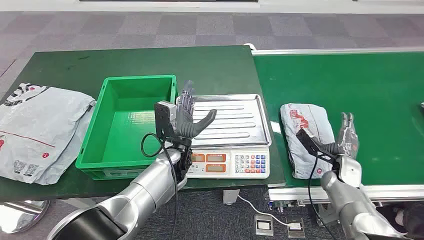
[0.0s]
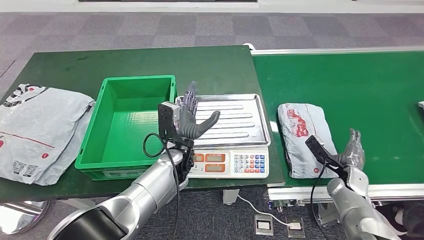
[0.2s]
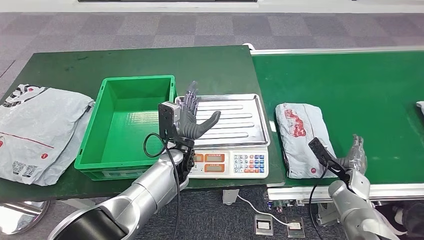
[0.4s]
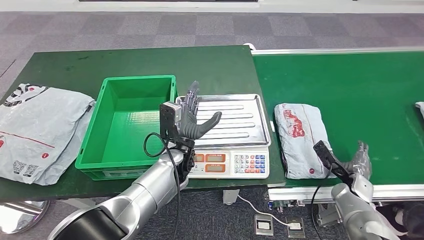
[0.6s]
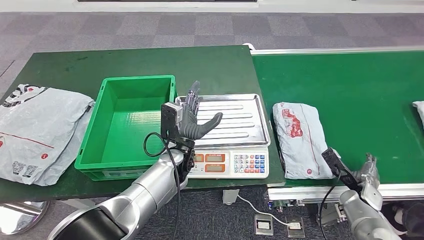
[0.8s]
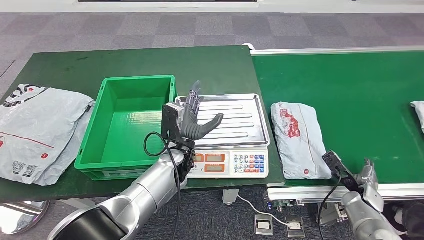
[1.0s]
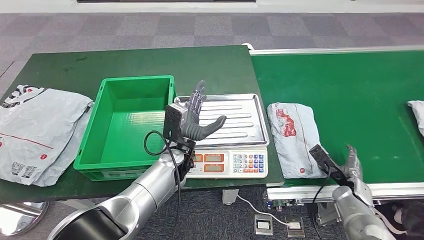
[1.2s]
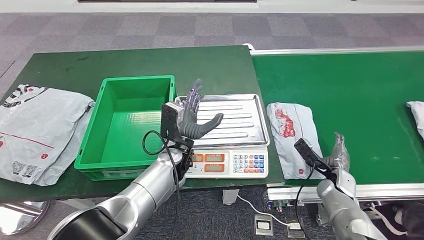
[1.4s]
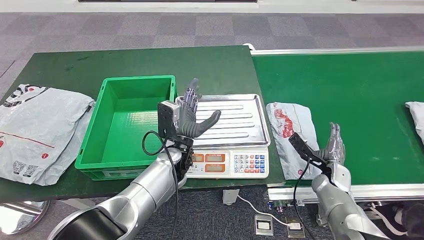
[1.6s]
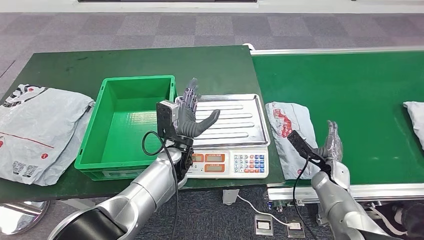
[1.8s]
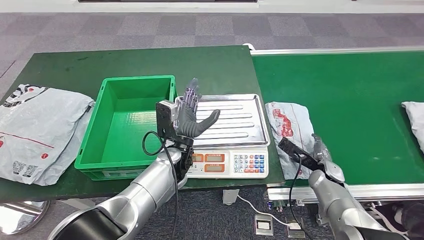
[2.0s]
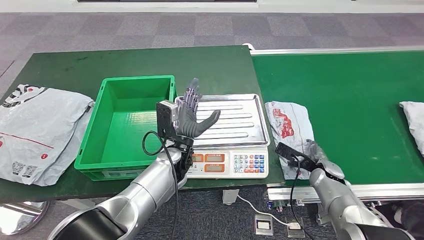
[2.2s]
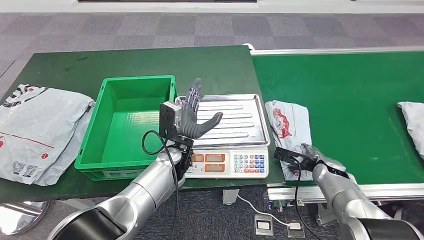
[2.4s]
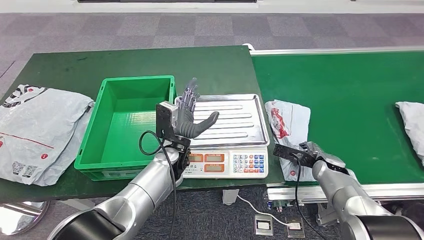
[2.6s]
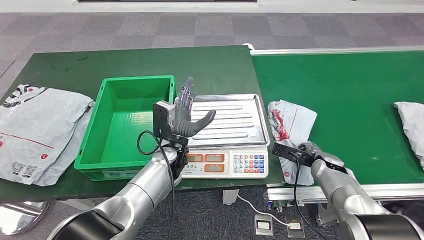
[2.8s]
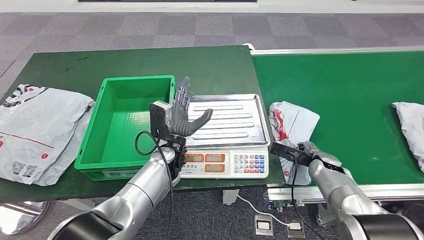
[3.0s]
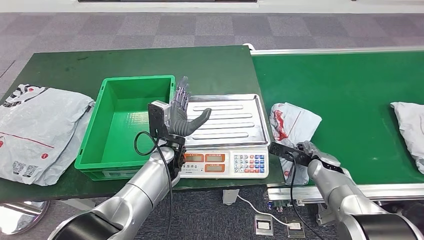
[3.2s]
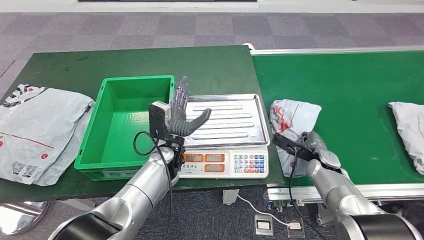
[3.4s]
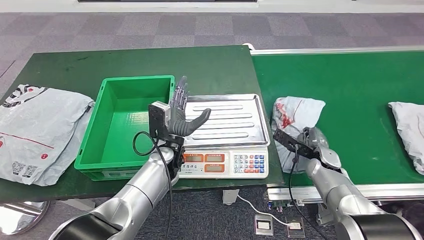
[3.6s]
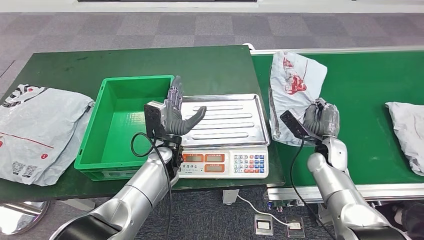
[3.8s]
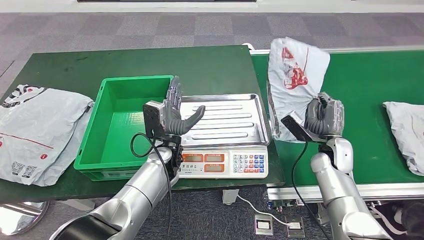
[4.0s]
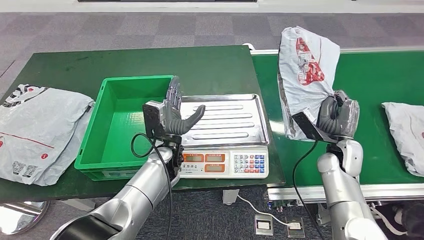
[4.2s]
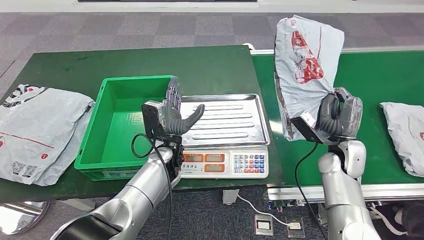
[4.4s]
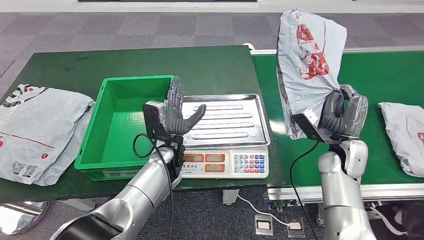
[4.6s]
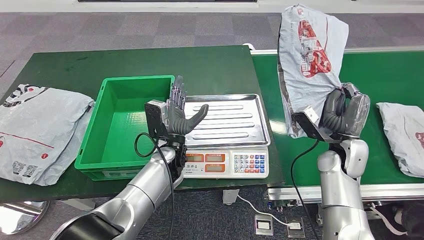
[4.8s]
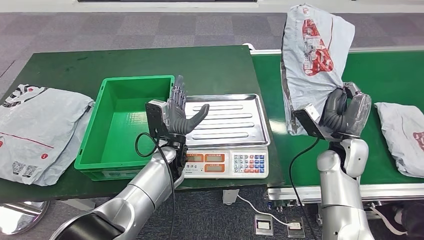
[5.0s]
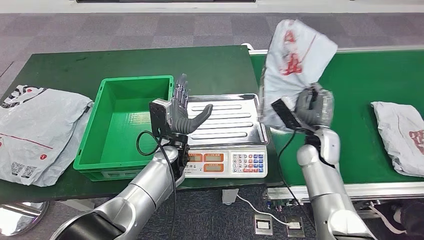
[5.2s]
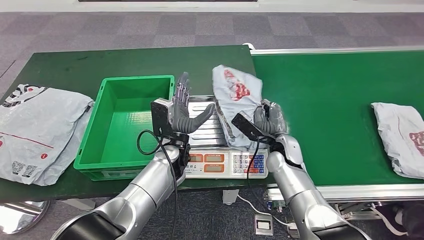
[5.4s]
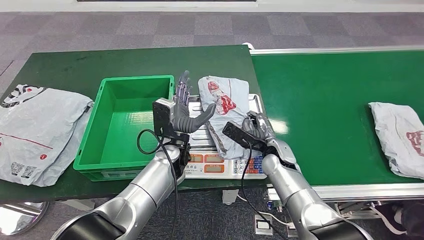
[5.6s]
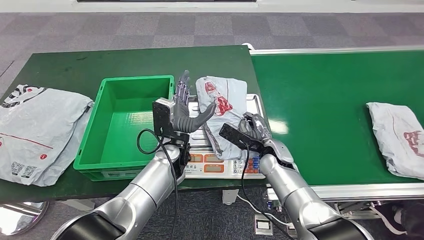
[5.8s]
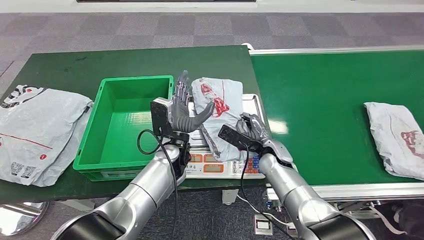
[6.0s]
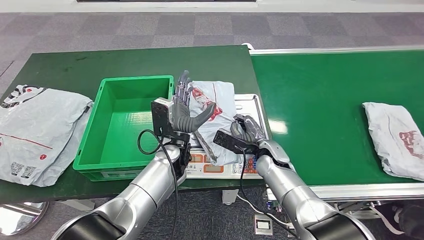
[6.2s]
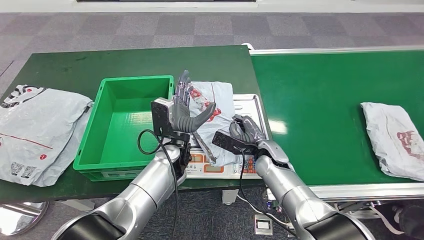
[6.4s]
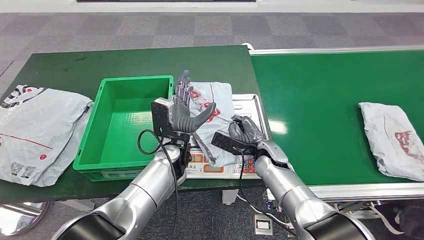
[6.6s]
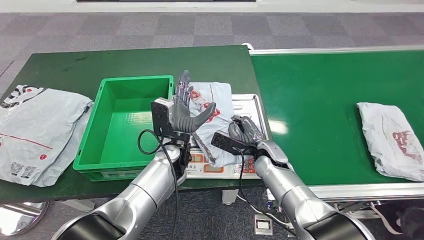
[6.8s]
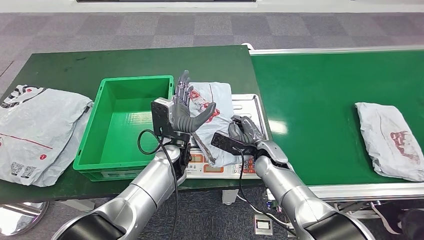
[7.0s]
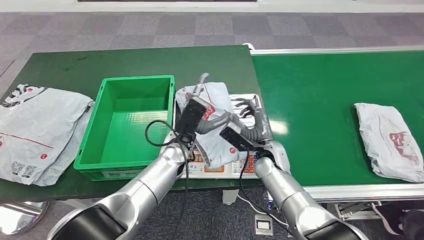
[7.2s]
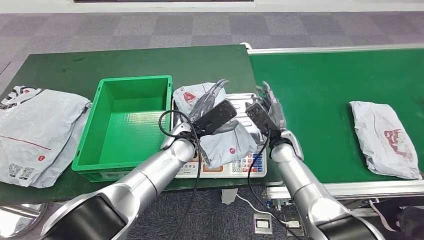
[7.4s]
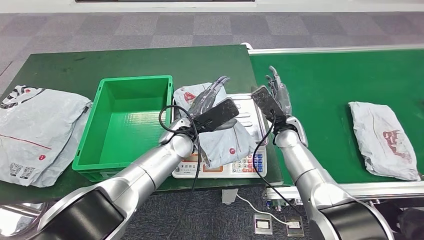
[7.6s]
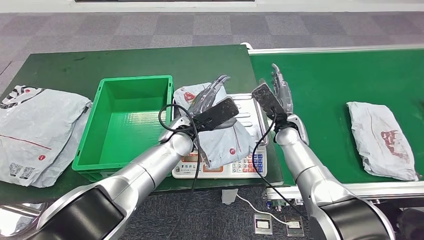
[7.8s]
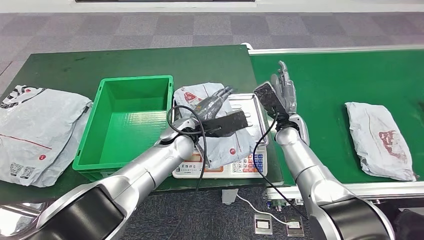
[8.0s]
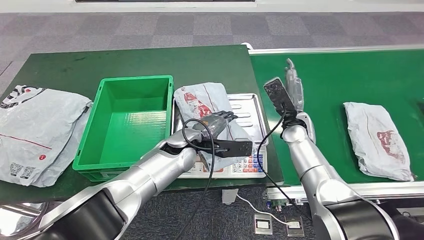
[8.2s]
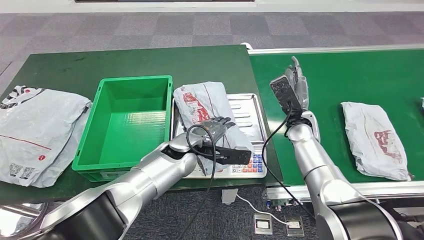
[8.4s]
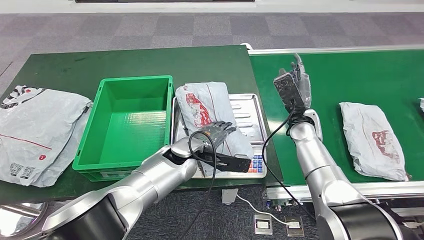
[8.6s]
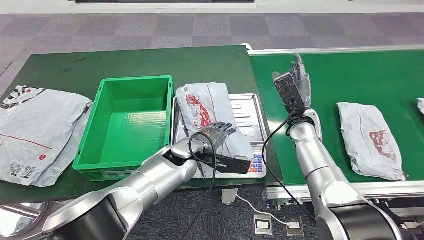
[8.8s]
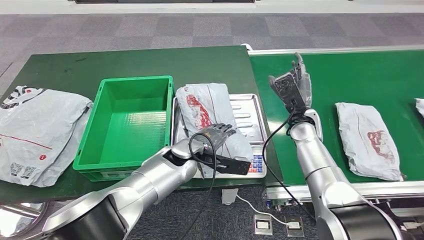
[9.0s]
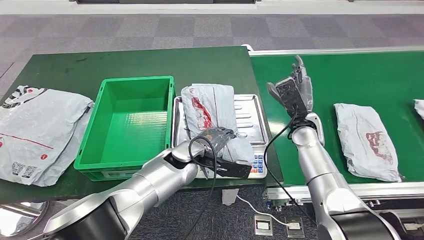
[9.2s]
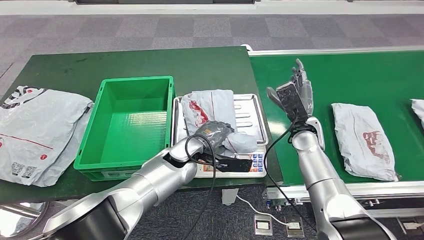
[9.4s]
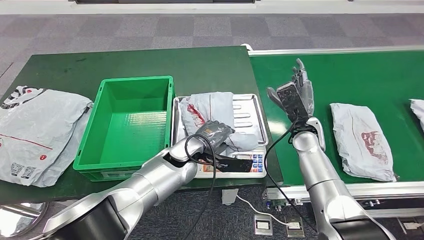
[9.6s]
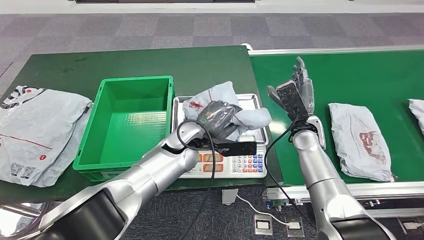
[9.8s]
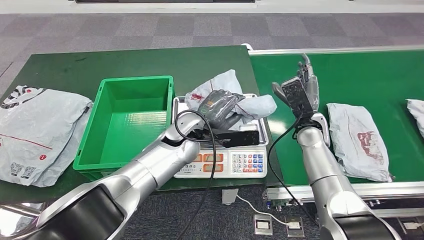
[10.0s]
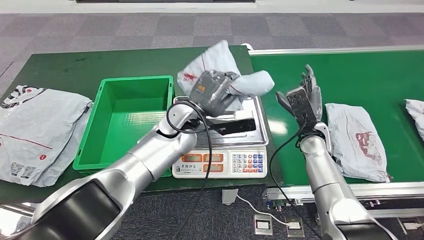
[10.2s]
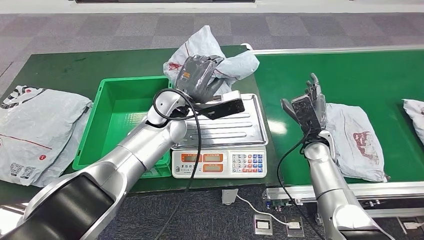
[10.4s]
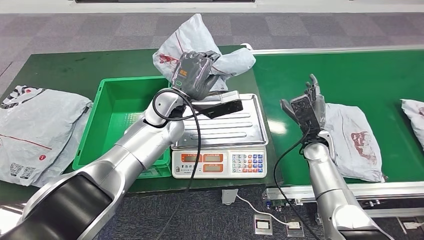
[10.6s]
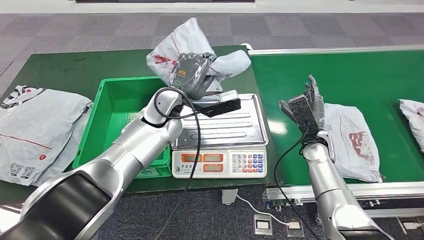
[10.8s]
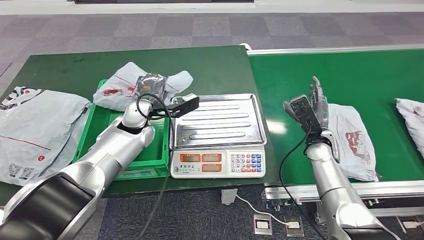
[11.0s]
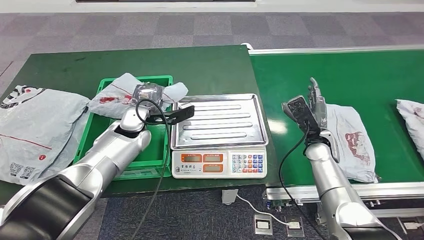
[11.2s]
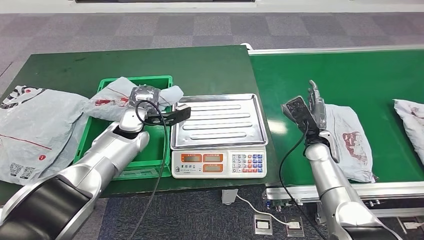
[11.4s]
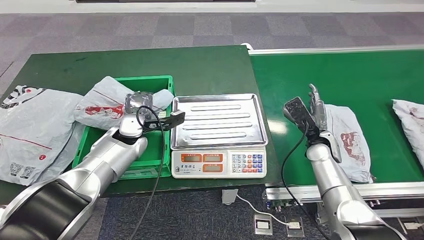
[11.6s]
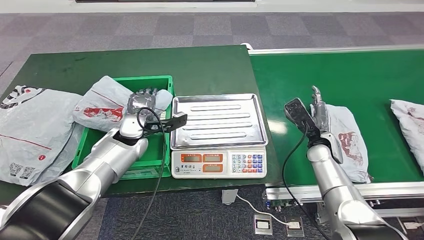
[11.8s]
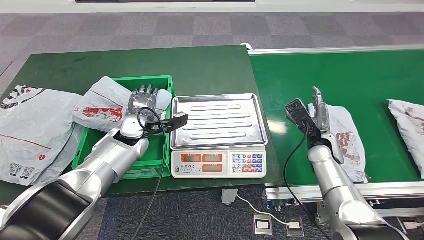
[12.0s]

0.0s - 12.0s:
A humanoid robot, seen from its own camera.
Step, 0.0s - 4.0s: Take the parcel off the conveyor belt.
Step, 4.2s - 6.8s: Place the parcel onto the inbound machine.
Step, 7.0s - 10.0s: Pick up the parcel from the inbound machine.
1.6s - 3.0s: The right hand shifts by about 5 cm.

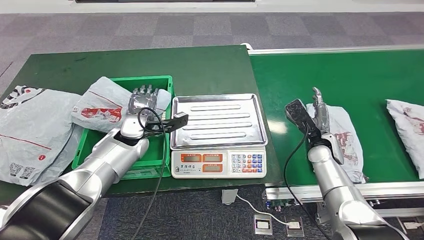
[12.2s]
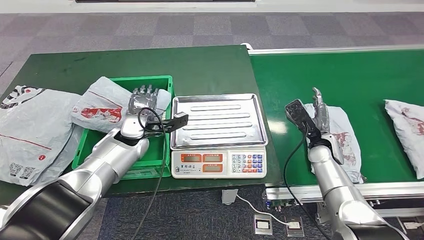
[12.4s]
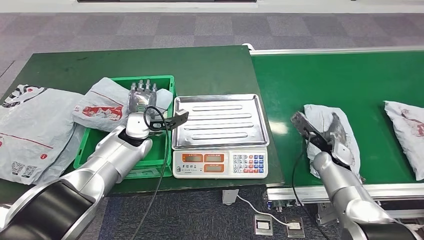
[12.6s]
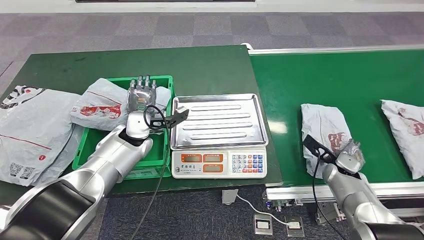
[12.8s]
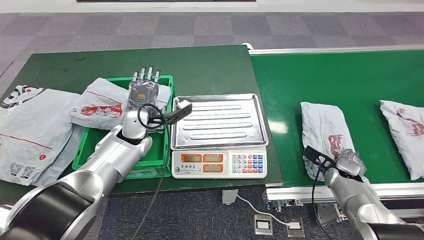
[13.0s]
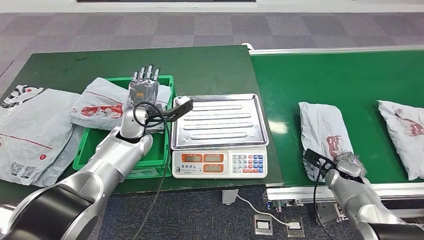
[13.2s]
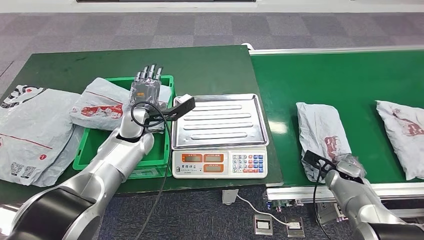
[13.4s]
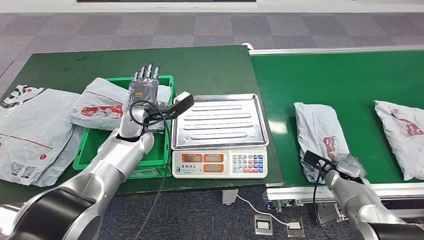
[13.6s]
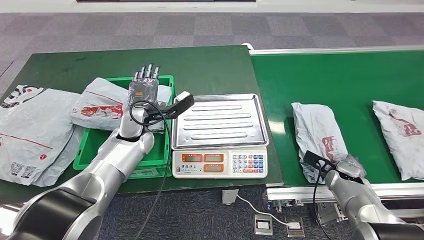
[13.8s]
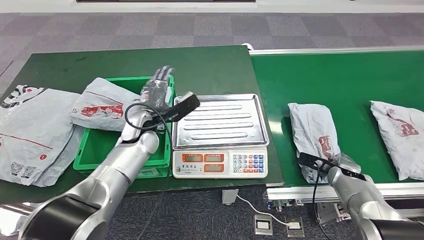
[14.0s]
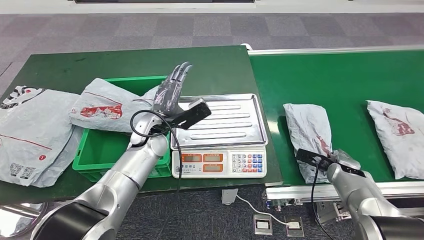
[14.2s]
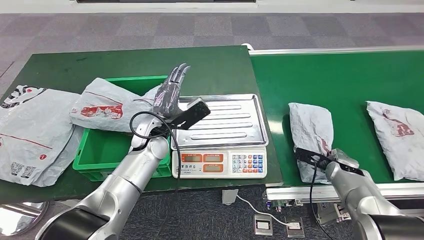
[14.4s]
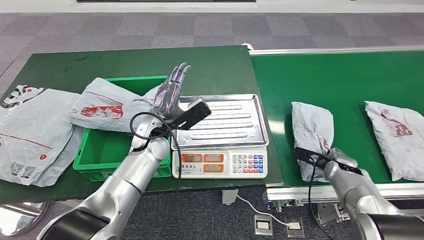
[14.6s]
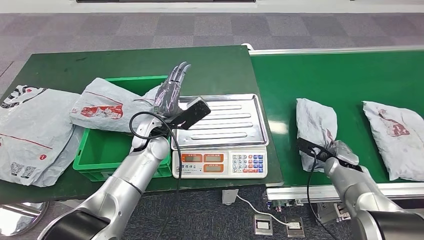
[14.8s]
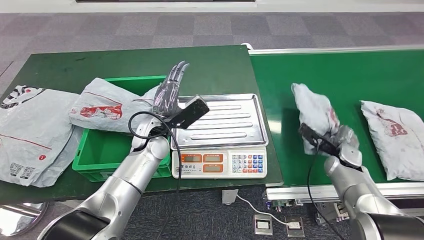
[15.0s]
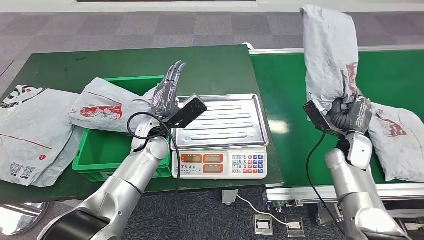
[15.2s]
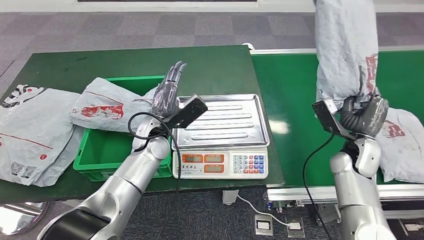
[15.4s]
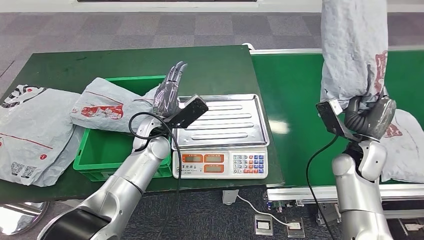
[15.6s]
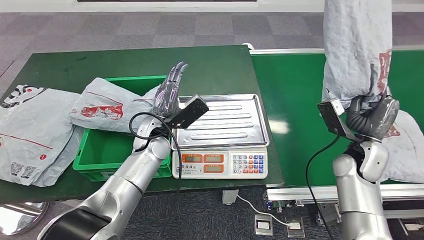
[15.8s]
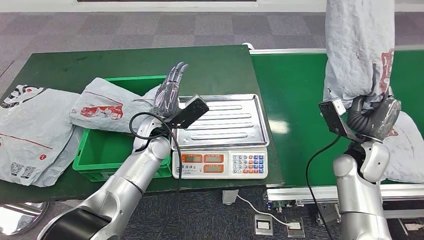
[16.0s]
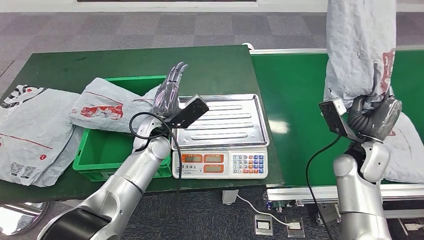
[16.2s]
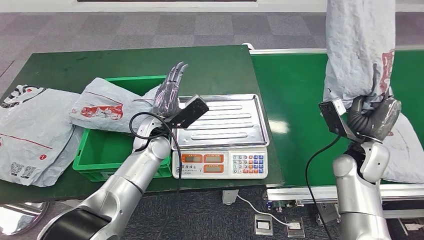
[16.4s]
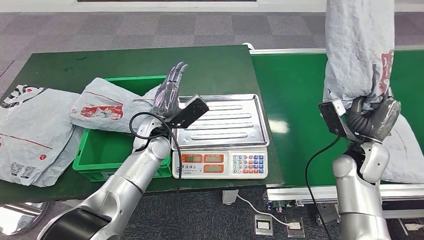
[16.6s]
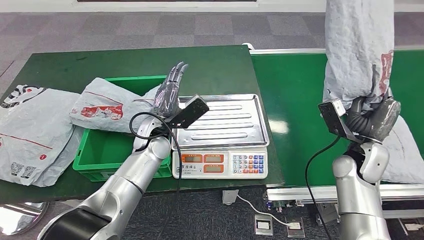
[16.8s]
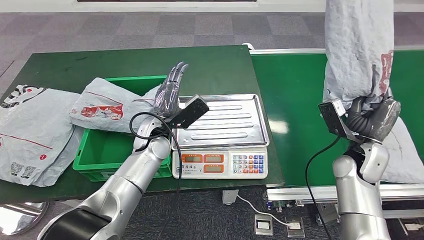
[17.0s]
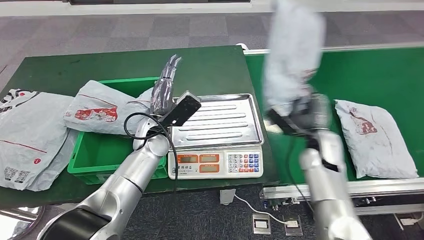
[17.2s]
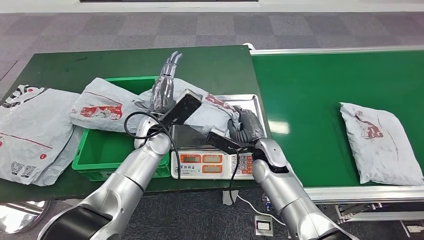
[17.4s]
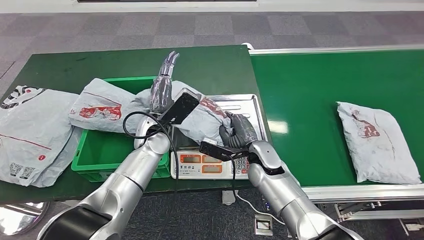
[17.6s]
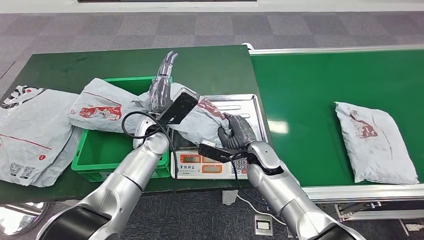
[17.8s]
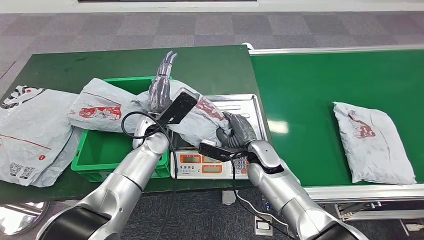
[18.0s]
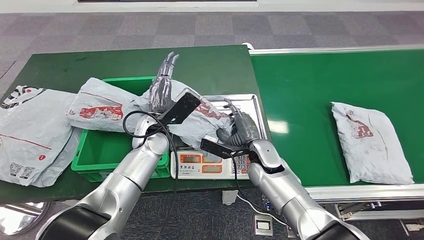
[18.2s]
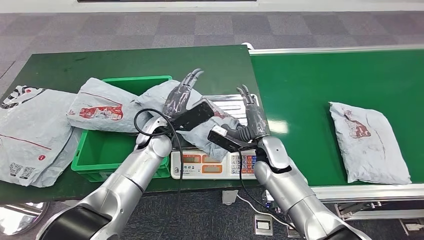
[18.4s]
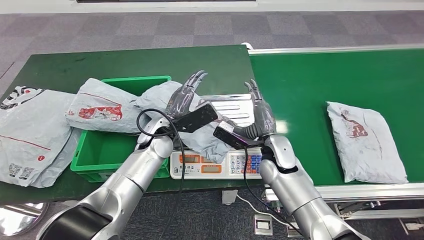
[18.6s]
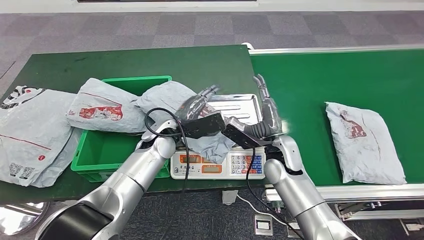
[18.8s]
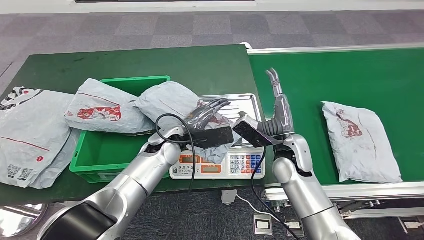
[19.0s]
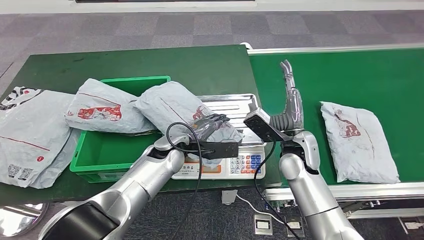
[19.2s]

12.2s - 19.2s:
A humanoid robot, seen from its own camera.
Step, 13.2s - 15.6s: Pick up the parcel from the conveyor belt.
Step, 15.8s - 19.0s: Place the parcel onto the inbound machine.
